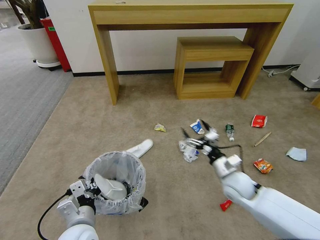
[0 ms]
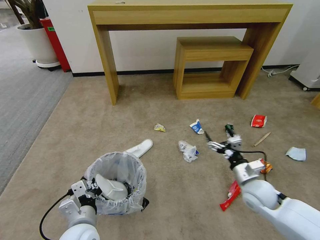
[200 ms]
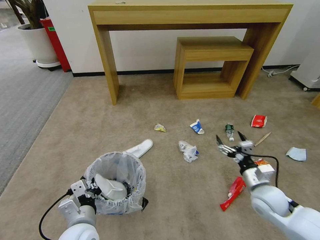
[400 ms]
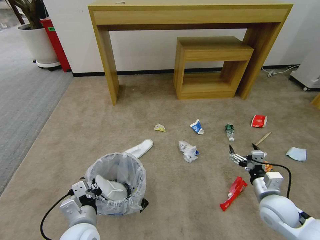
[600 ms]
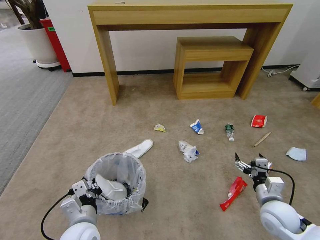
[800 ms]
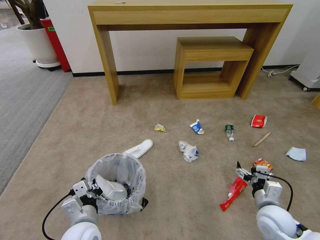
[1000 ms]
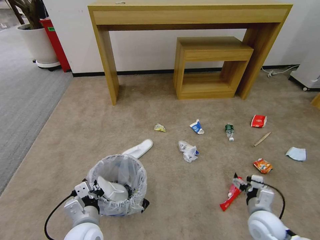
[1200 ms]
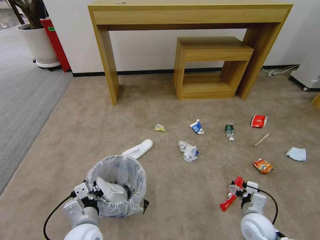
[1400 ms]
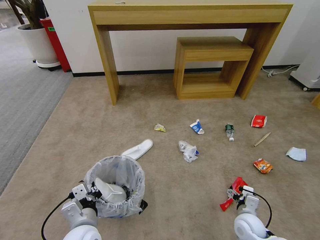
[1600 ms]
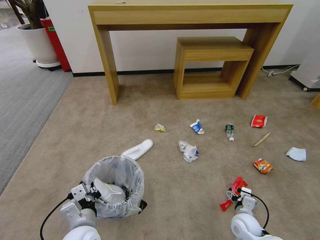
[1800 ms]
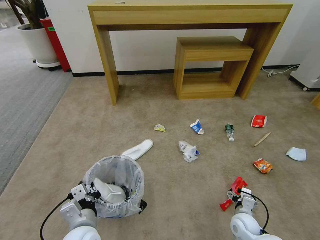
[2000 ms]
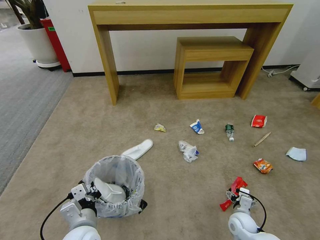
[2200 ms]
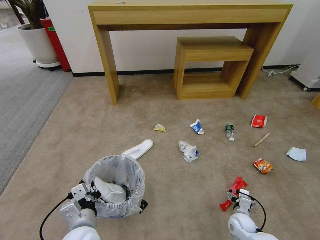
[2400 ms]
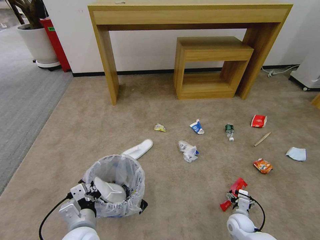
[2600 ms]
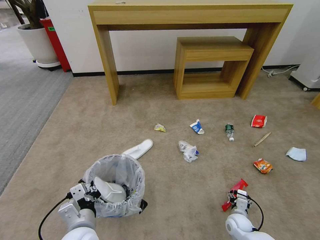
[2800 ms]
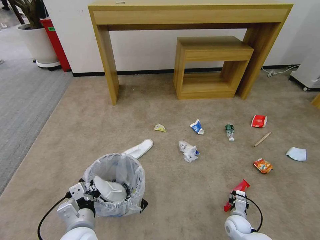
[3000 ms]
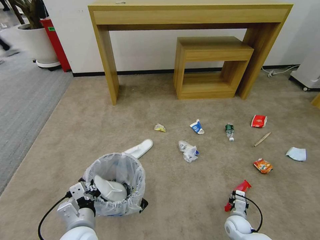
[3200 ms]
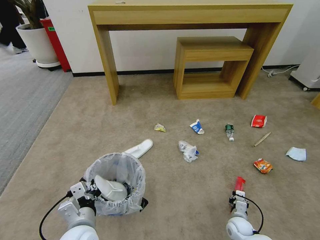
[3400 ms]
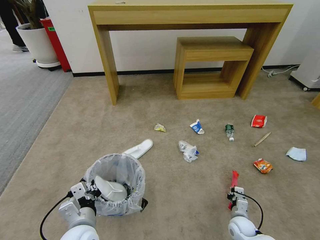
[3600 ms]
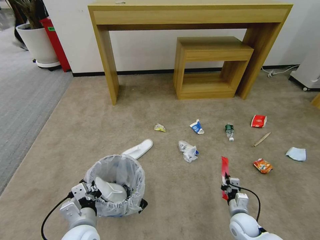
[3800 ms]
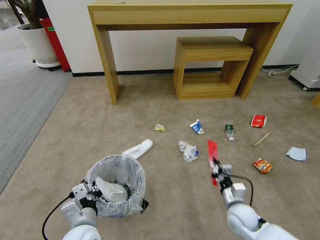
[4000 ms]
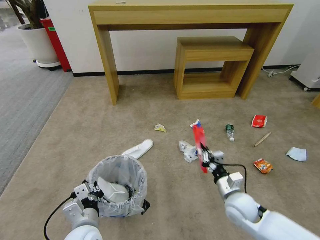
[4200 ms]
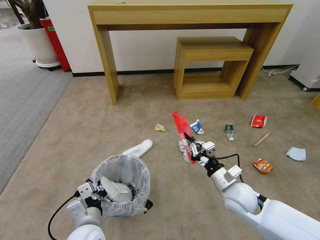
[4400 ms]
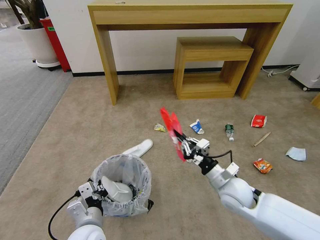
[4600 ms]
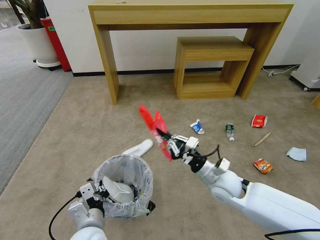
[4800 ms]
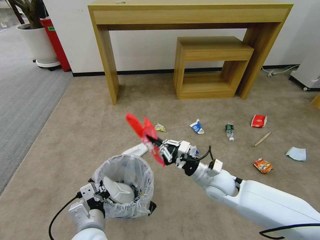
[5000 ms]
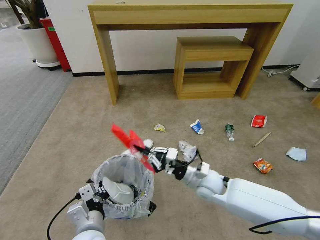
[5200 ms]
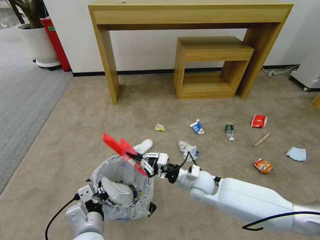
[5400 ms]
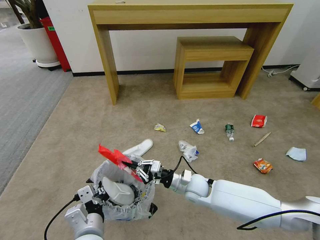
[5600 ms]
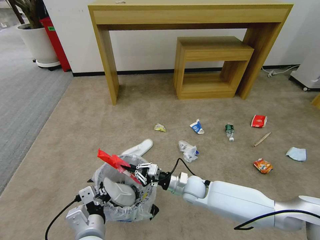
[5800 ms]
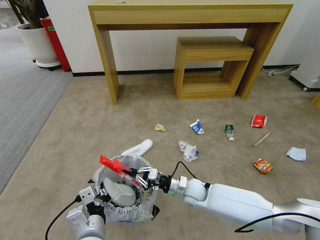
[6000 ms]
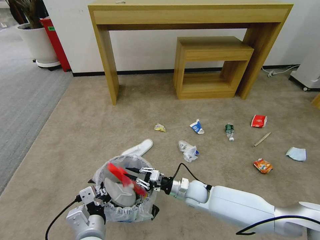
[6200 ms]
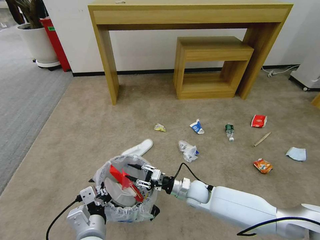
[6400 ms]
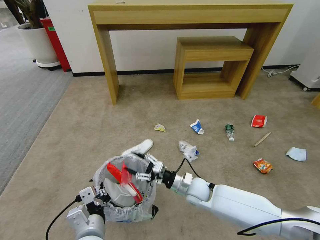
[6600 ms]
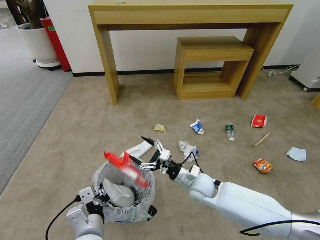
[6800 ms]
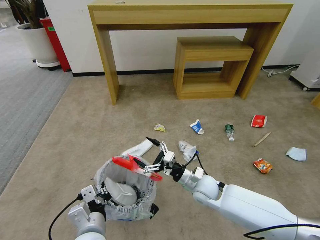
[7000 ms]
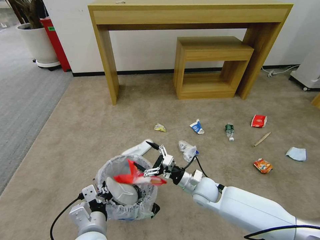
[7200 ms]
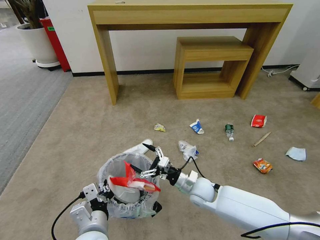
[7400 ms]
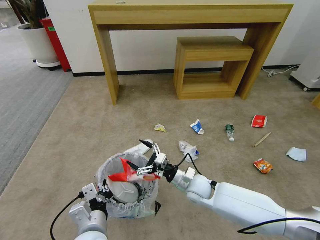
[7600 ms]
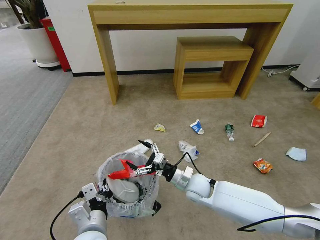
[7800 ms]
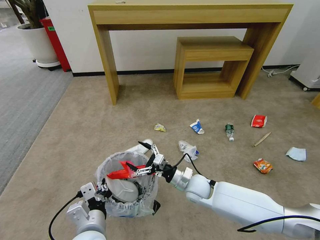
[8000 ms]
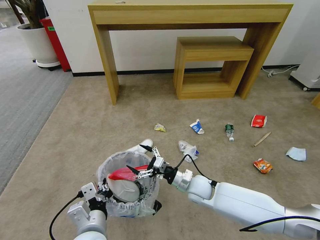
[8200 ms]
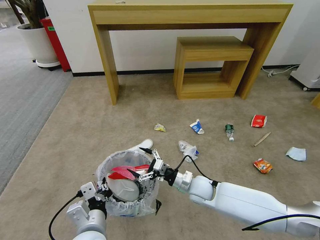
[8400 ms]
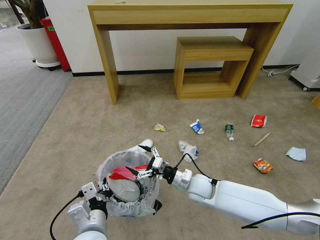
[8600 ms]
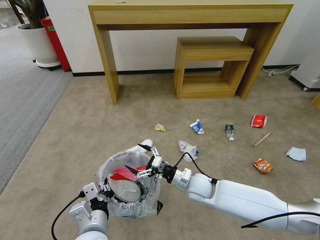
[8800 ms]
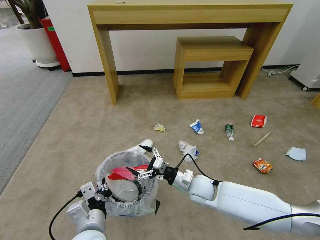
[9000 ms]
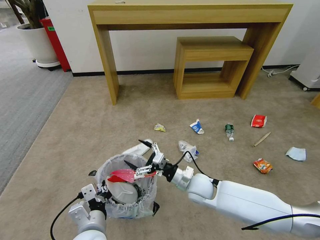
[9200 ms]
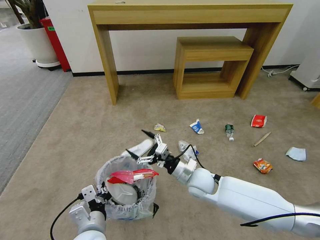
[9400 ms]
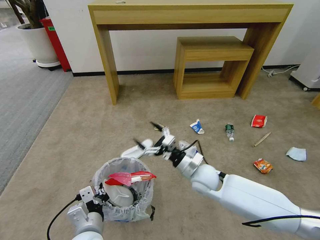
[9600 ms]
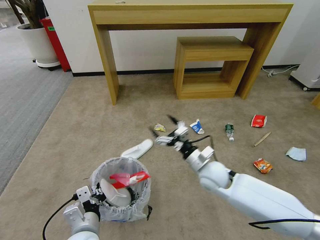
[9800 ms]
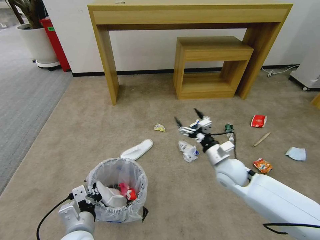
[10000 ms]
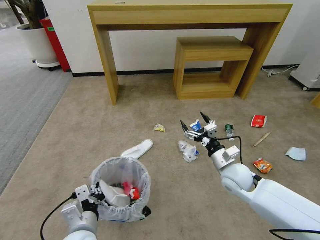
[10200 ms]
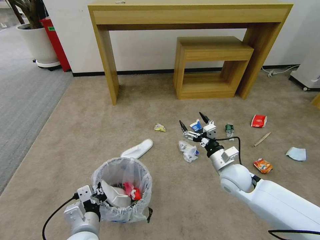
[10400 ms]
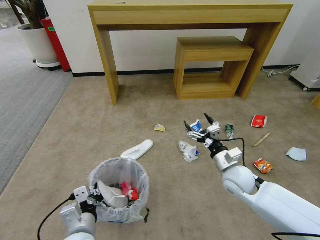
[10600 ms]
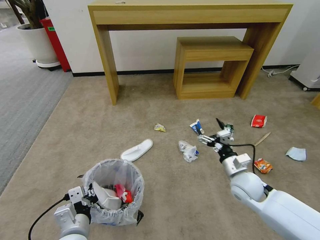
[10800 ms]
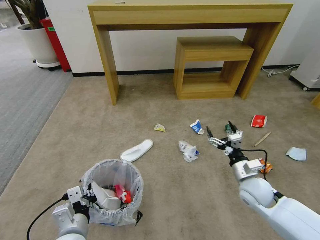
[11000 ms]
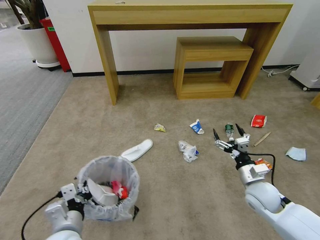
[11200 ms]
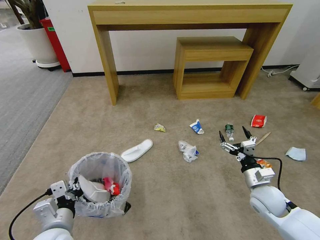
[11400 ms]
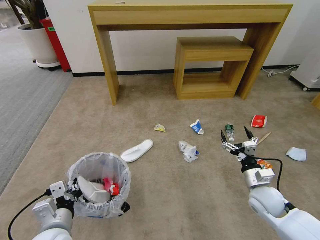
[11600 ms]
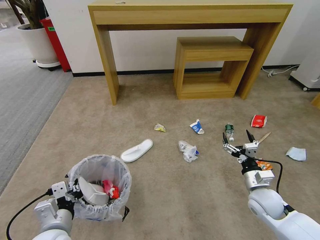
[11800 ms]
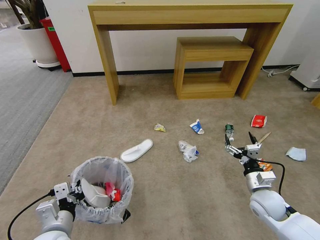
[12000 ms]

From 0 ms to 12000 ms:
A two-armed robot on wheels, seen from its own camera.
Task of the whole recording: Pick up the trash bin and place the garbage on the floor into it.
From 0 ms to 1600 ms: The right gripper moves downward, backward and to the right, about 15 cm.
From 1600 ms to 3000 ms: The right gripper goes about 10 cm downward, and closes its fingers.
From 3000 ms to 4400 ms: The right gripper goes about 25 cm upward, and closes its fingers.
From 4400 ms to 6000 ms: The right gripper goes about 15 cm to the left, downward and forward; the left gripper changes place by some 5 cm.
From 6000 ms to 7600 ms: The right gripper opens its fingers.
From 7600 ms to 9000 ms: There are only small adjustments of the grippers.
From 9000 ms to 10400 ms: The right gripper moves to the right and upward, roughly 10 cm.
From 10400 ms to 12000 ms: The left gripper heads to the left, covering roughly 5 cm; the right gripper shifts approximately 15 cm to the right, backward and downward.

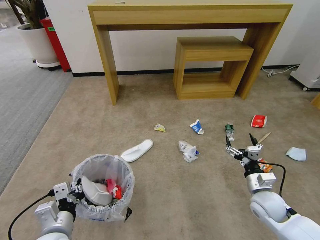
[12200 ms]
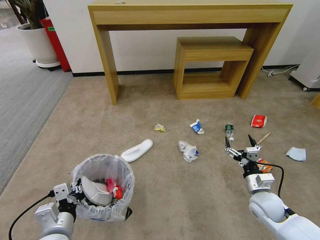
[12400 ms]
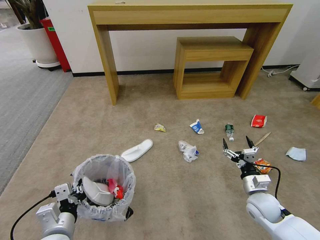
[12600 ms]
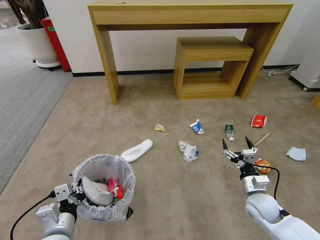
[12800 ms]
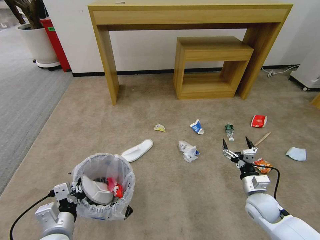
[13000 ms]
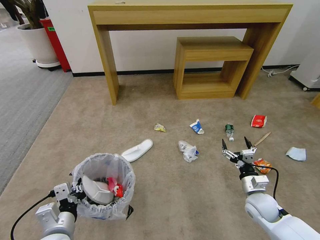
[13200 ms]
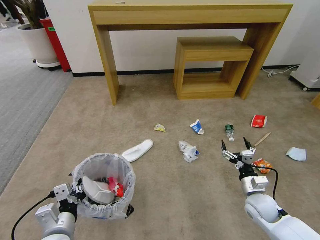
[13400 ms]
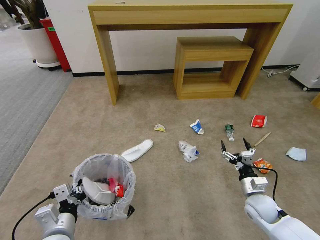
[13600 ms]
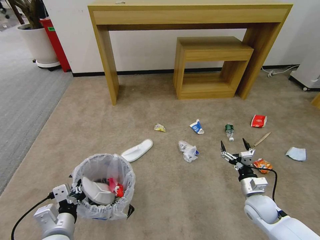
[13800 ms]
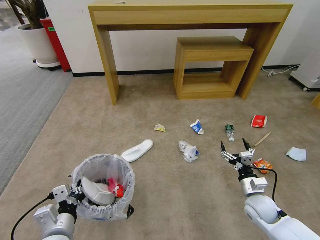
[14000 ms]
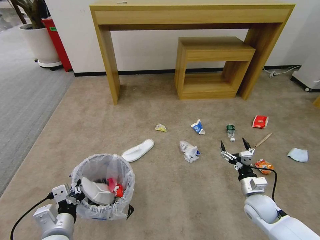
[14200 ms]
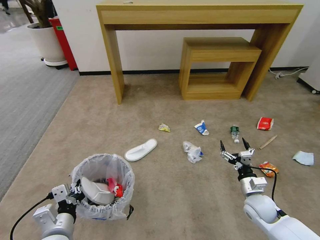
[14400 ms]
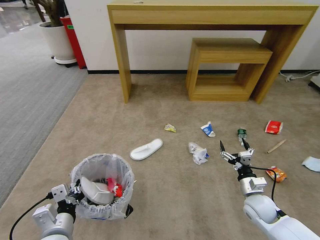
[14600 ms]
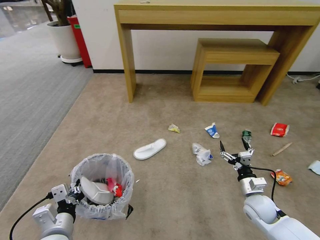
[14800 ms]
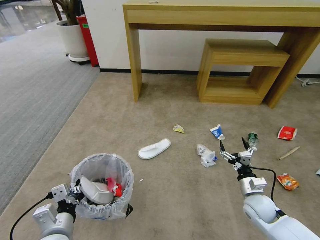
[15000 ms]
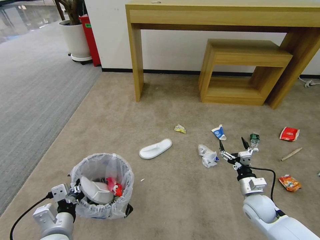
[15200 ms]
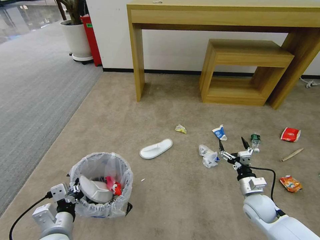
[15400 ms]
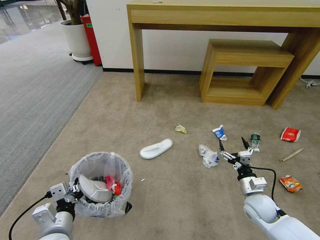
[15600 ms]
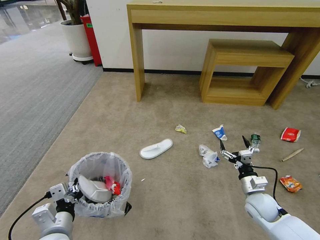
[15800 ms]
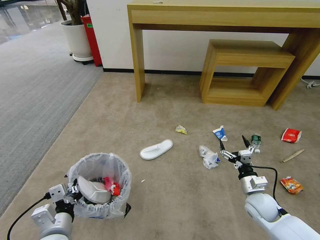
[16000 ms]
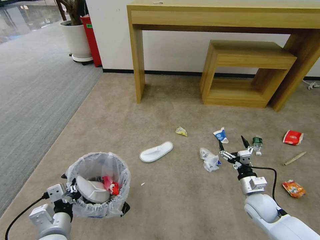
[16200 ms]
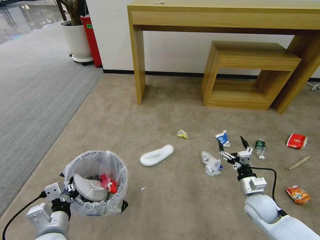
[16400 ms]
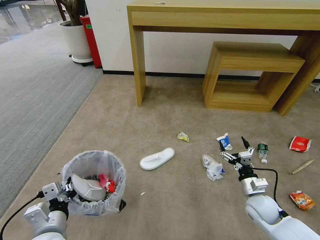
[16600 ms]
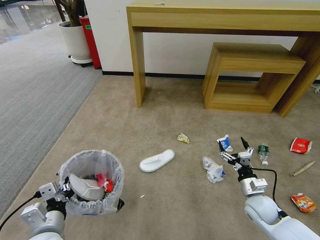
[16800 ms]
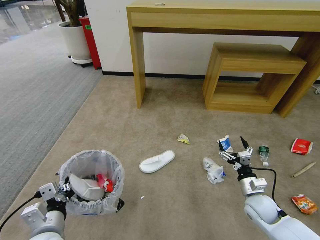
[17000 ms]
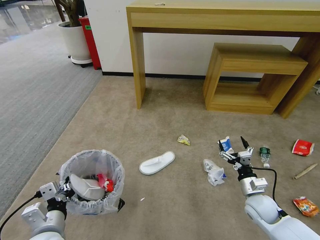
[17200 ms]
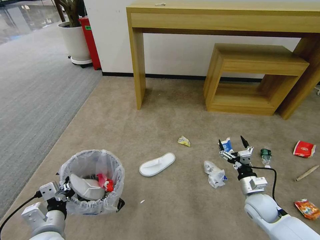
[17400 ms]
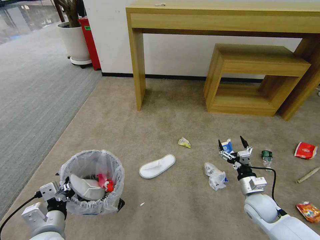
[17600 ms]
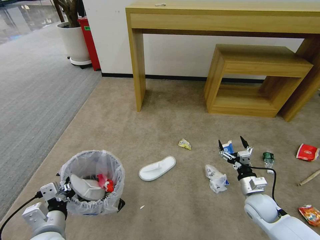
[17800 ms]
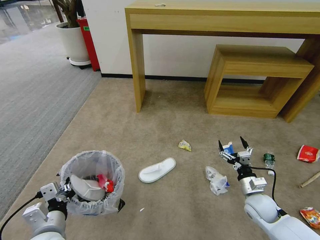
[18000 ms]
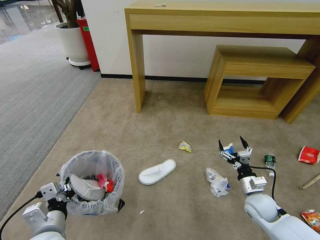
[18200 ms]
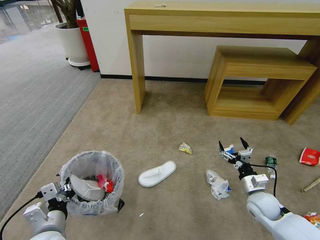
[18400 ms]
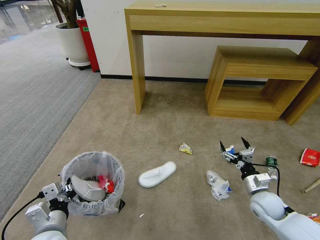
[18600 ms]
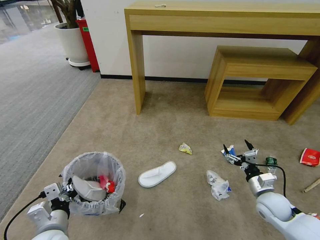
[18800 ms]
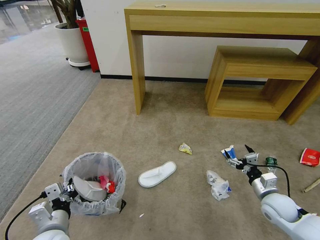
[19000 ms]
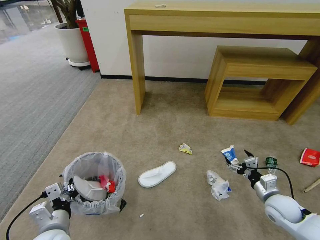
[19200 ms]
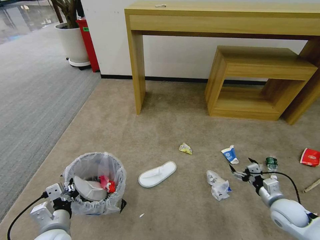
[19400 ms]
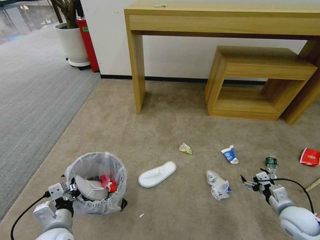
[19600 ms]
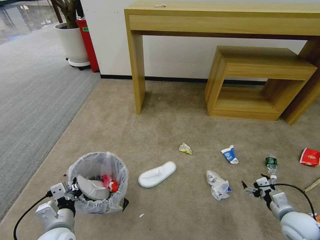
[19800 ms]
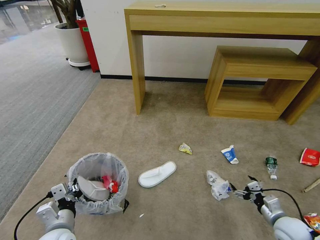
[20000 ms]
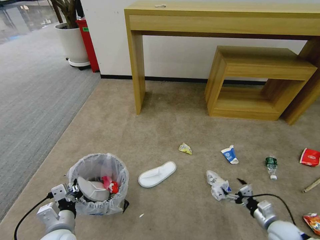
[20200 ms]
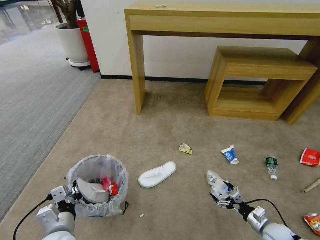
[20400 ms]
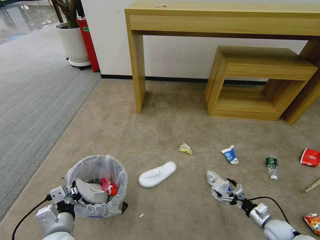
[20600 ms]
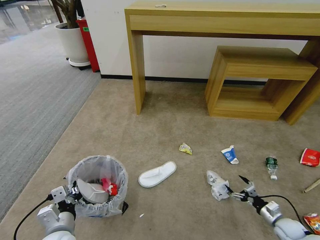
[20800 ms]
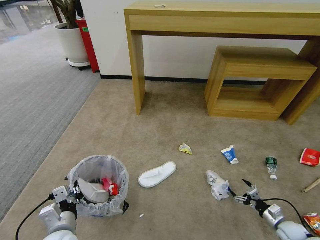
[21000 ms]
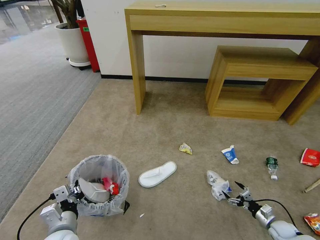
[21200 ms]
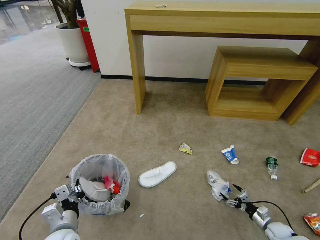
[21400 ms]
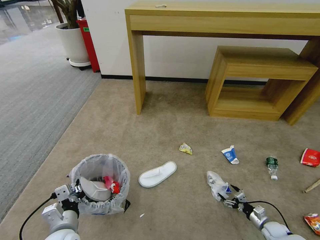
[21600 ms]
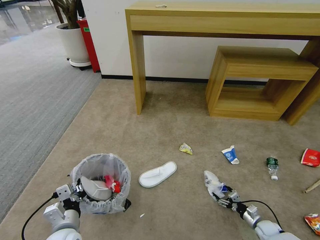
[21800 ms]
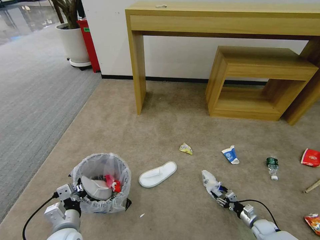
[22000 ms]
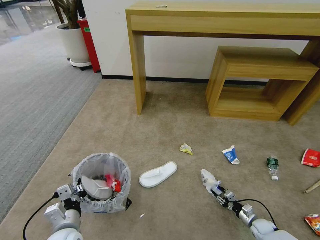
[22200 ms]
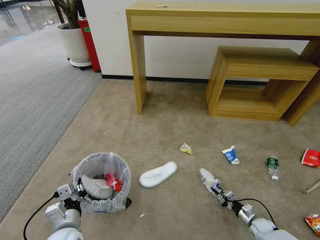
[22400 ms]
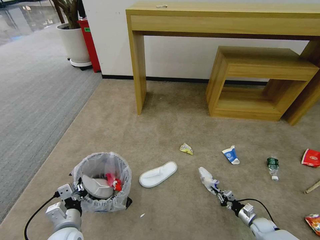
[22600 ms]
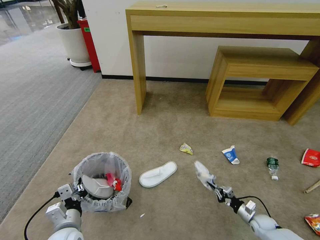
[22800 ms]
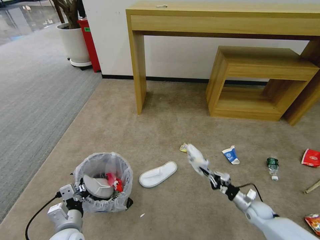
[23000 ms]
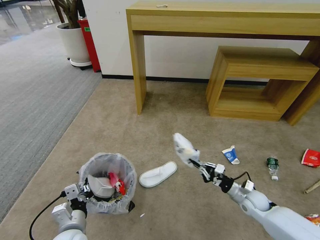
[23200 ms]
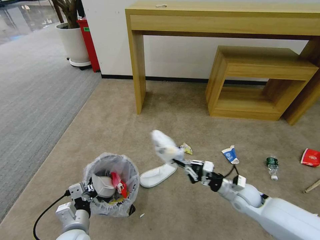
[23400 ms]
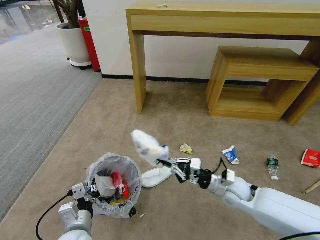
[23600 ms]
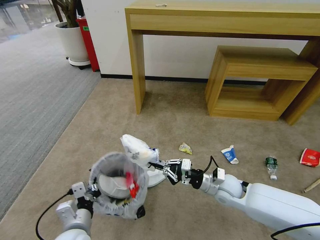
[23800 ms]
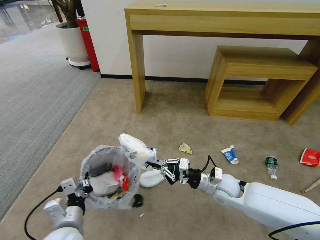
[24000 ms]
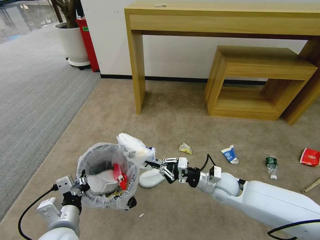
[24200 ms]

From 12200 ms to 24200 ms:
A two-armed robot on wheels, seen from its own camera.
Task of the whole recording: Pick up the trash bin and place the garbage on the floor into it.
From 12200 ms to 13800 ms: The grippers move only a little.
From 18200 ms to 19800 ms: The right gripper travels to the right and backward by some 10 cm.
From 19800 ms to 21200 ms: The right gripper is displaced downward by roughly 15 cm.
From 21200 ms to 22600 ms: The right gripper travels to the left by about 5 cm, and closes.
From 22600 ms to 24200 ms: The left gripper travels upward by approximately 10 cm; the right gripper moves upward and to the left, roughly 35 cm.
